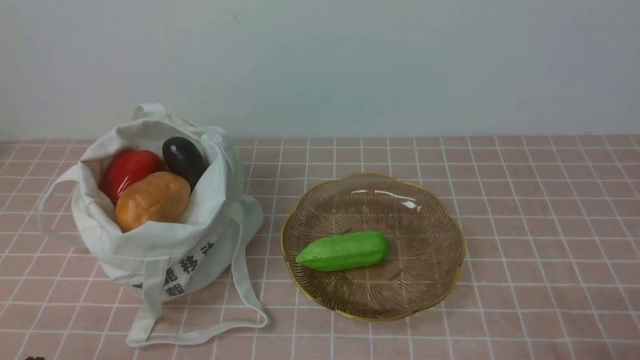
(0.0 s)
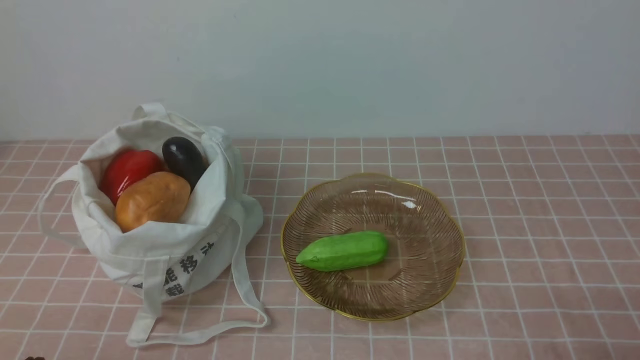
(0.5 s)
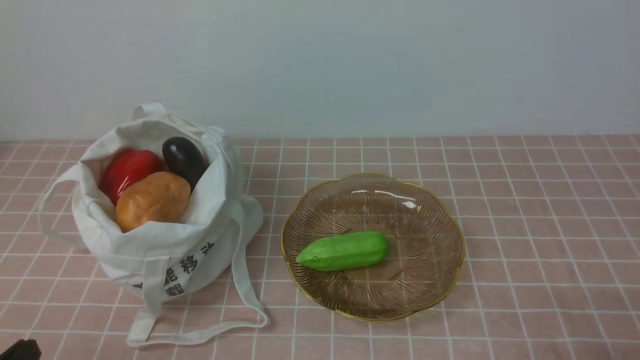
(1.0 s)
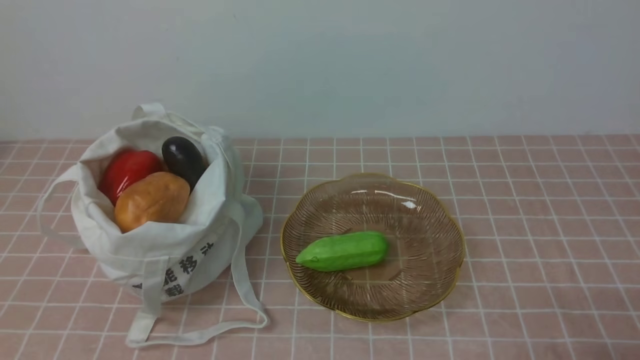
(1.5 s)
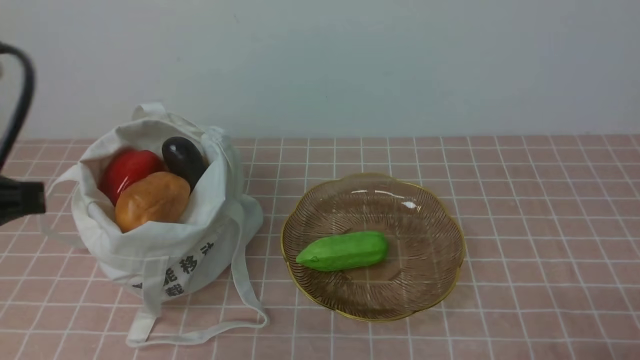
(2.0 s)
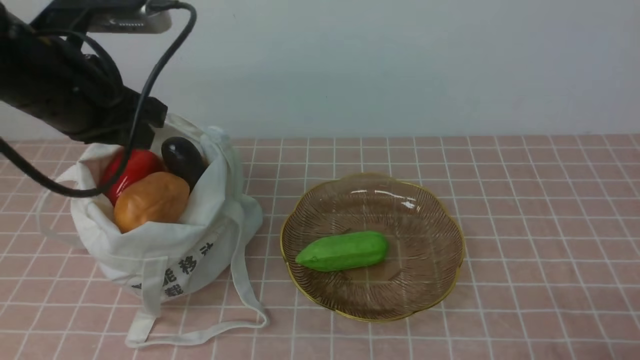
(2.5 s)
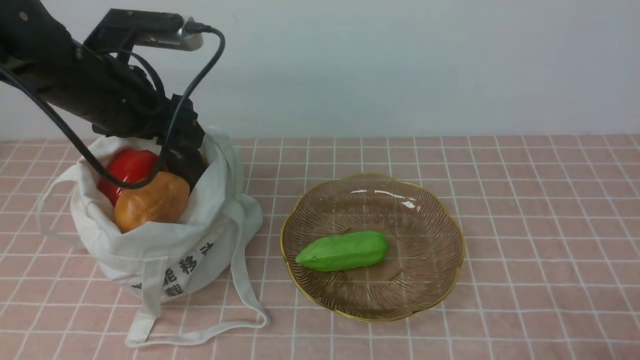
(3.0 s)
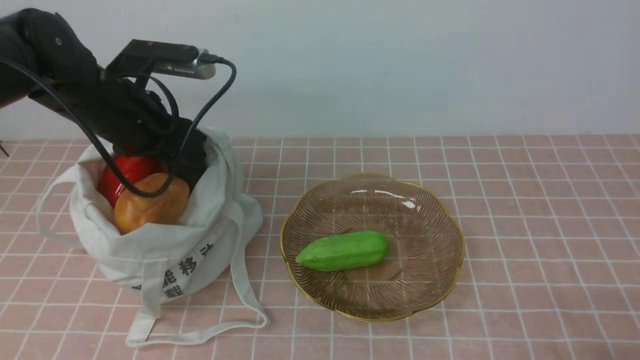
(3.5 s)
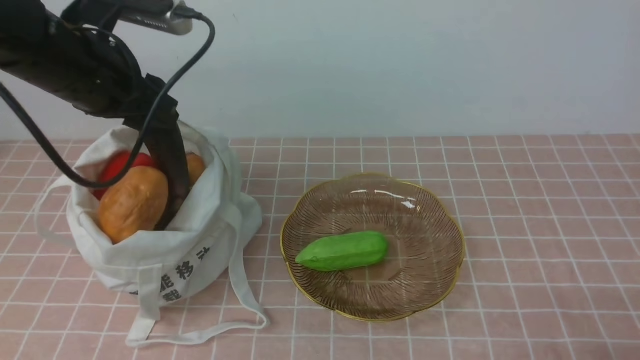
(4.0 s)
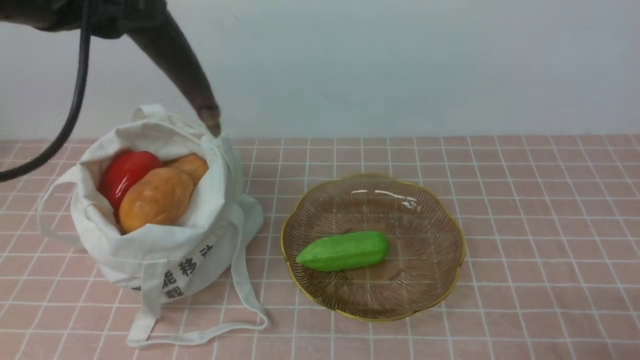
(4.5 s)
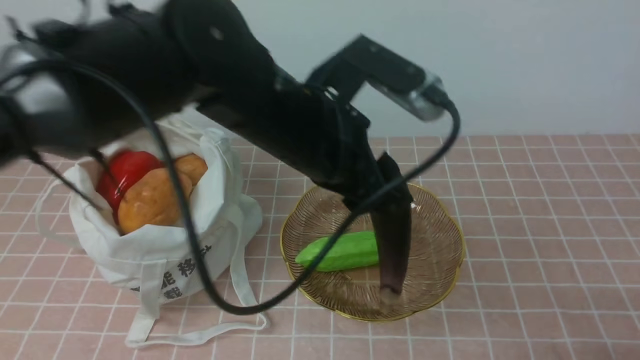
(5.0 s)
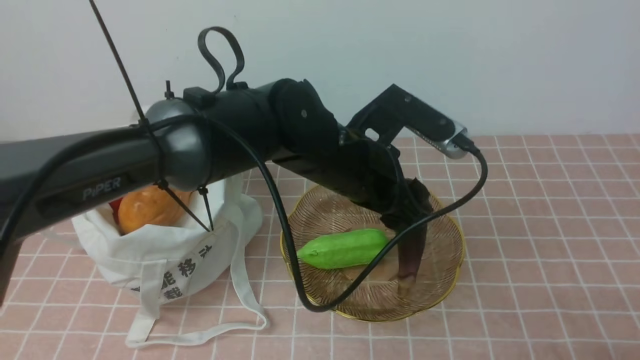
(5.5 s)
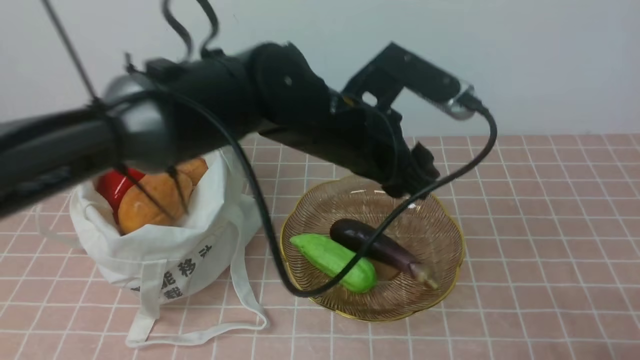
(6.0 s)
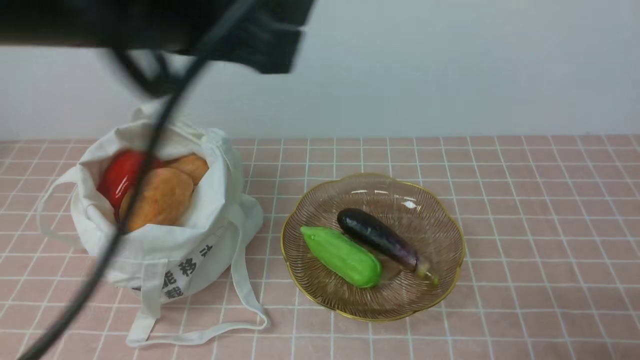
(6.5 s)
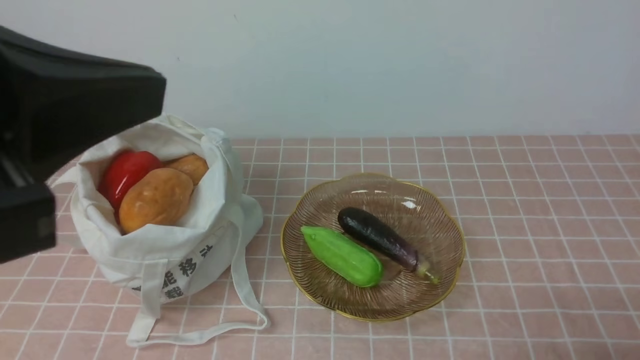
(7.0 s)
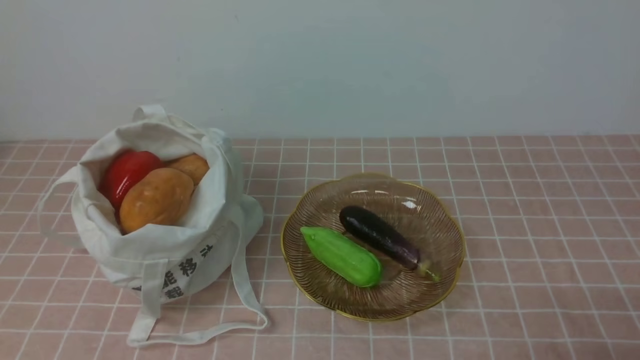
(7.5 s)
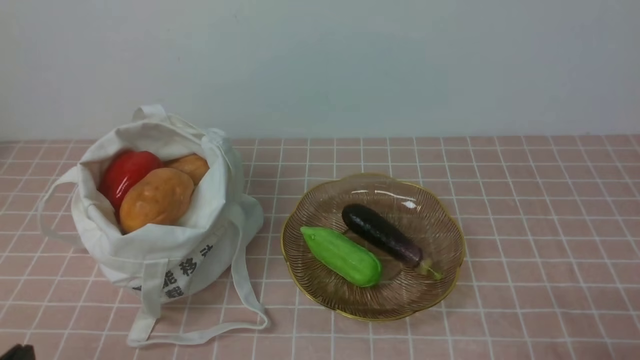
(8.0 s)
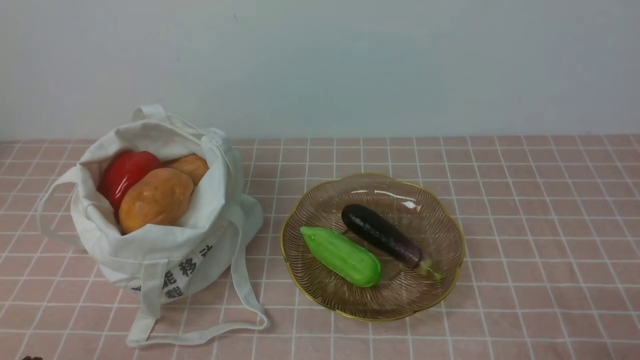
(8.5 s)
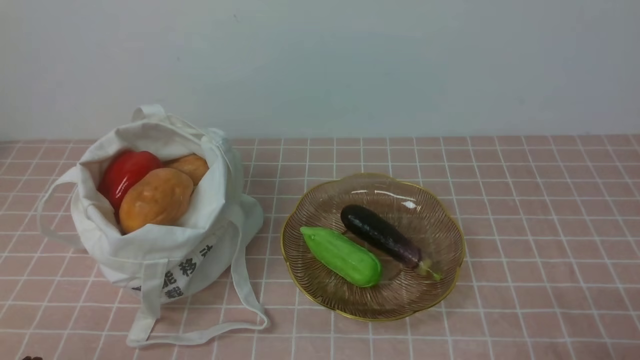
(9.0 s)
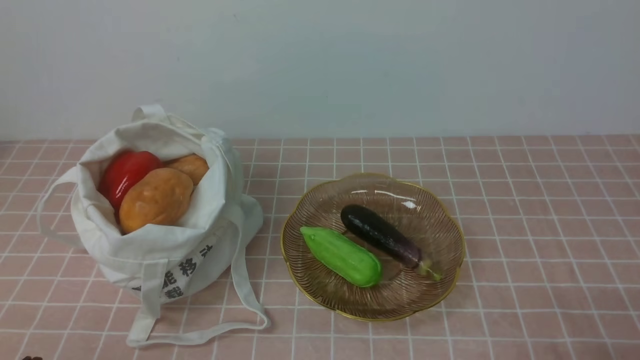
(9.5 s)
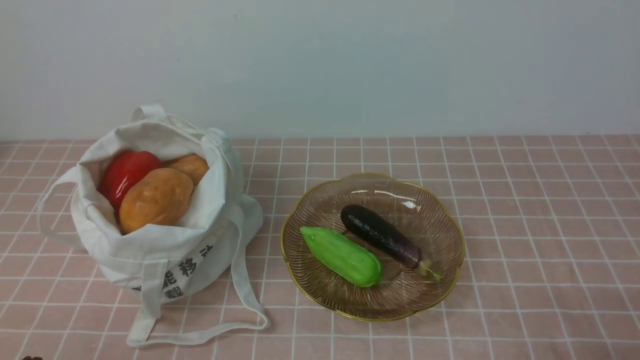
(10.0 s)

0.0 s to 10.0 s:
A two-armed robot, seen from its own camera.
Task of the whole recording: take vegetables from bag on pink coffee tablecloth place on plate.
Step, 0.0 to 3.0 s: Grasp the eggplant with left gripper.
Step, 3.5 to 6.0 s: Place the eggplant on the plate with left gripper.
0.0 to 2.0 s: The left gripper heads upward and forward, covering roughly 25 cm.
2.0 to 4.0 s: The left gripper shifts approximately 15 cm forward, and opens up.
4.0 to 6.0 s: The left gripper heads to the right, covering about 20 cm.
6.0 to 8.0 s: The left gripper is displaced backward, to the left and downward by approximately 40 cm, and closes up.

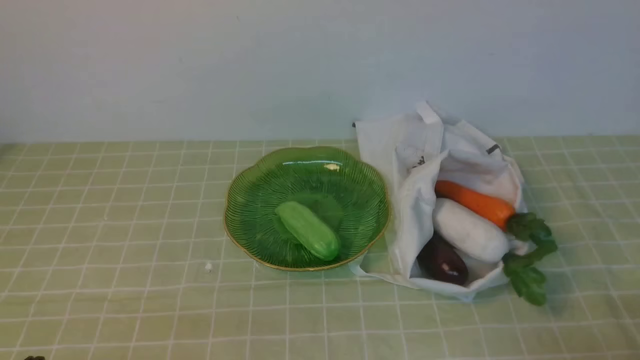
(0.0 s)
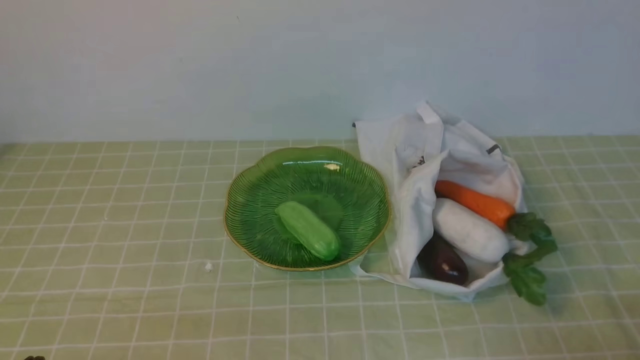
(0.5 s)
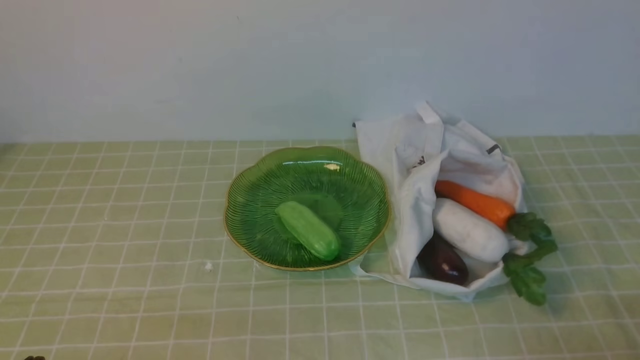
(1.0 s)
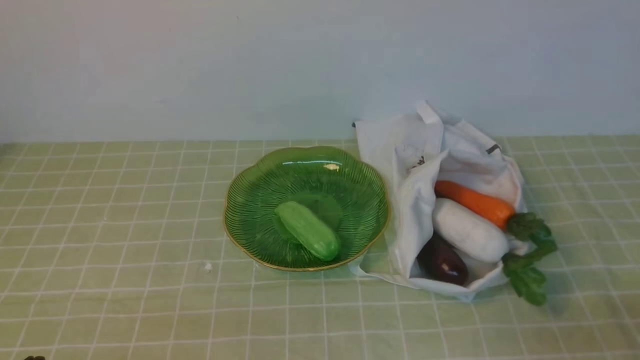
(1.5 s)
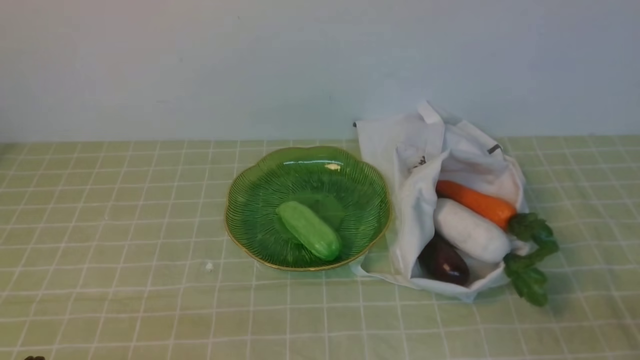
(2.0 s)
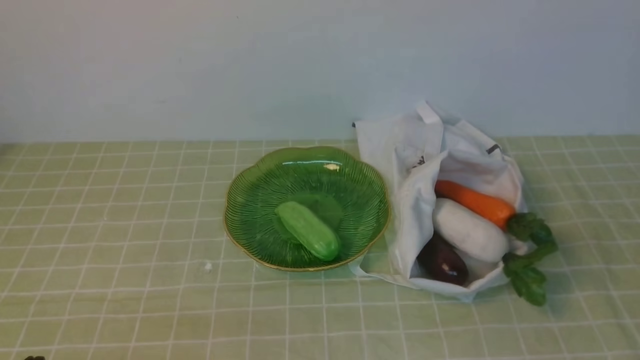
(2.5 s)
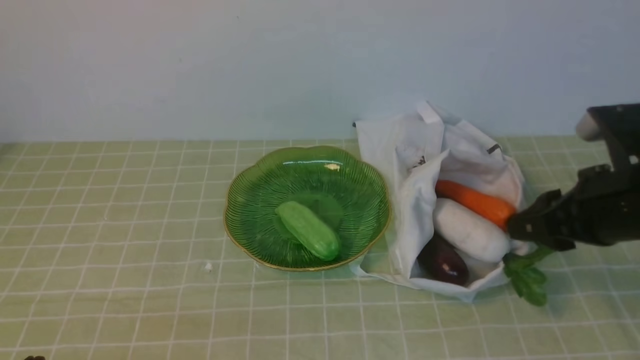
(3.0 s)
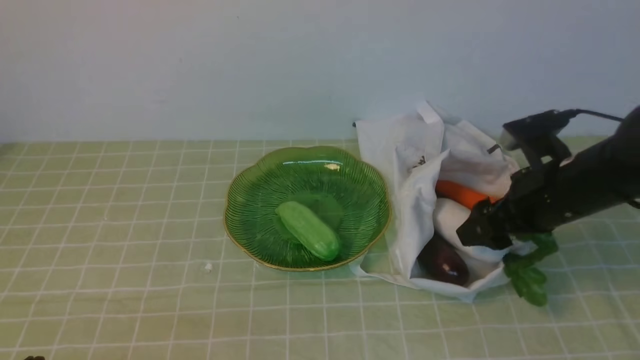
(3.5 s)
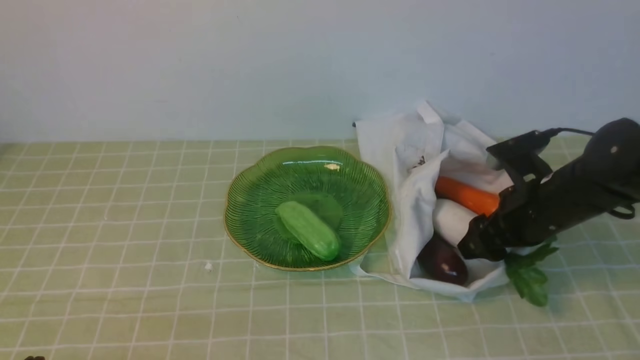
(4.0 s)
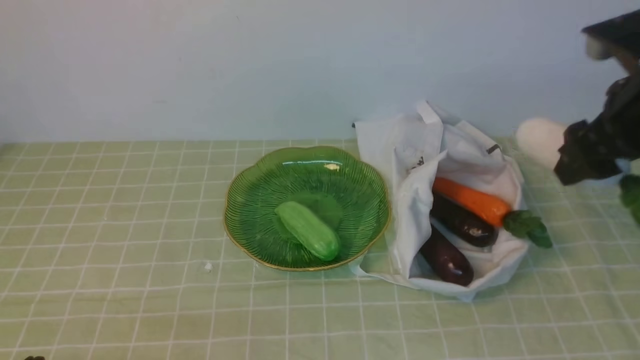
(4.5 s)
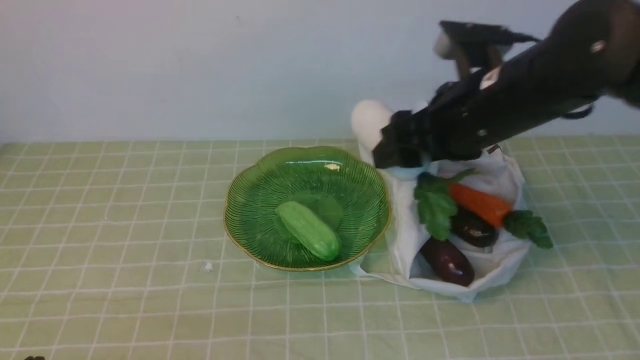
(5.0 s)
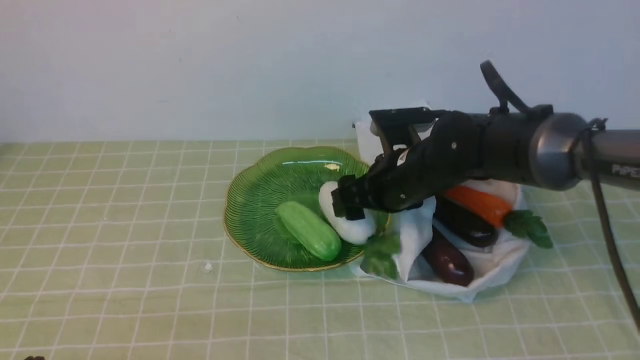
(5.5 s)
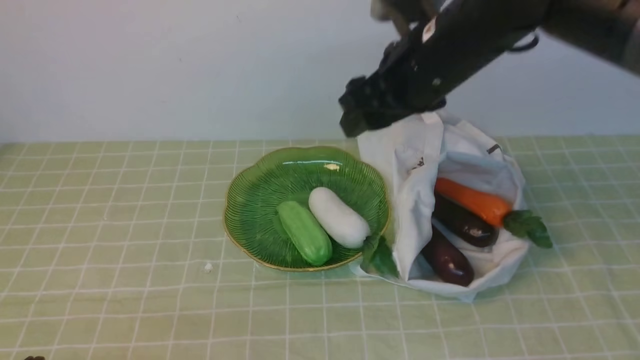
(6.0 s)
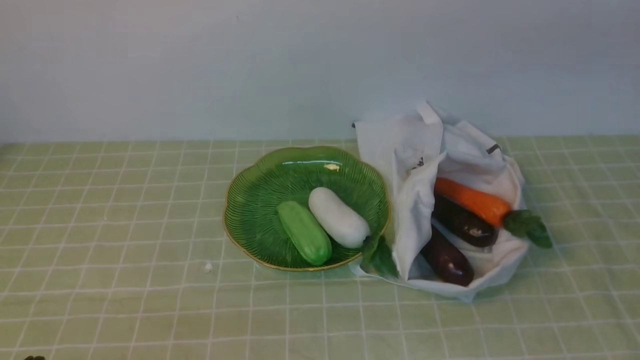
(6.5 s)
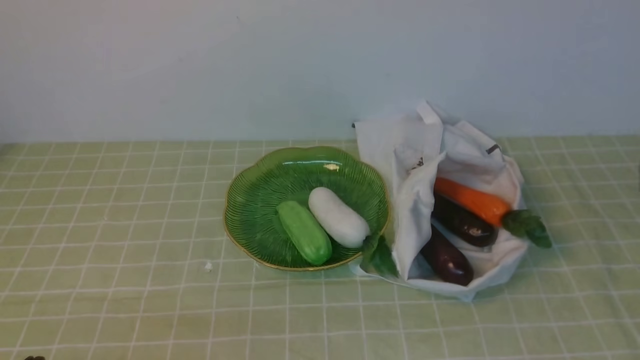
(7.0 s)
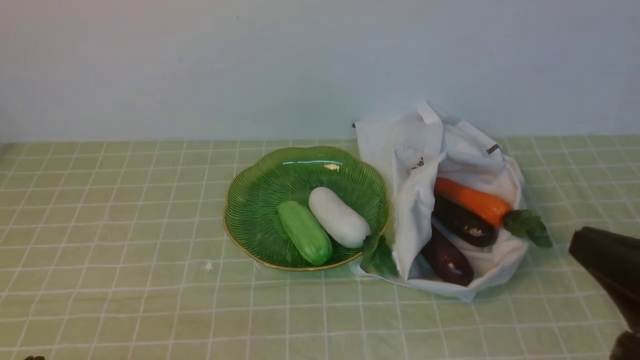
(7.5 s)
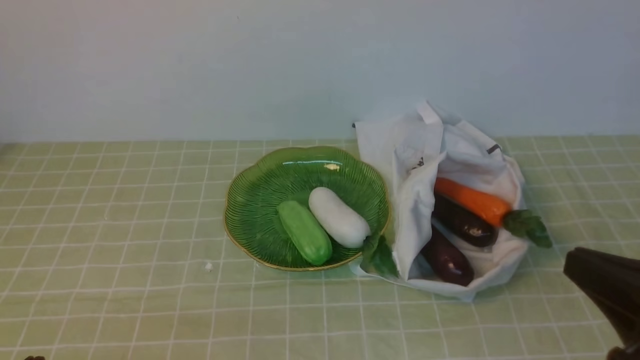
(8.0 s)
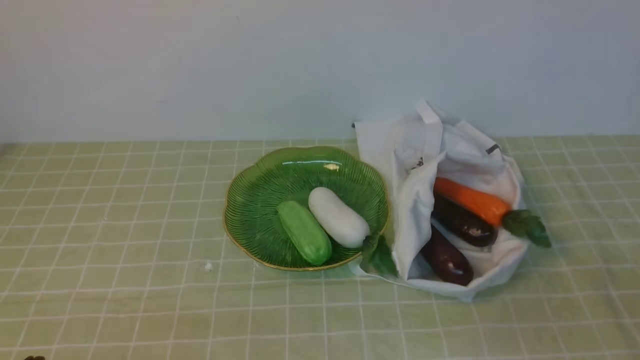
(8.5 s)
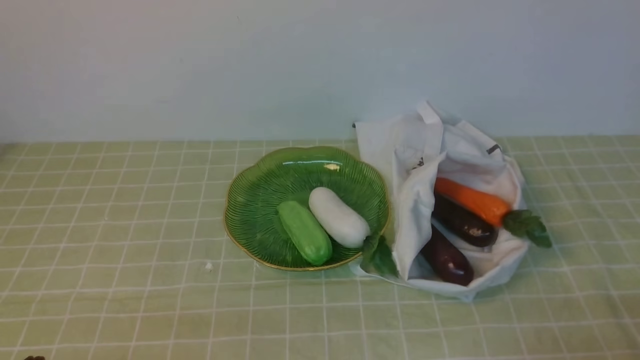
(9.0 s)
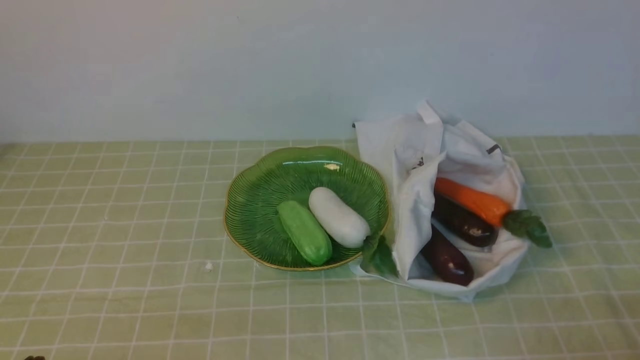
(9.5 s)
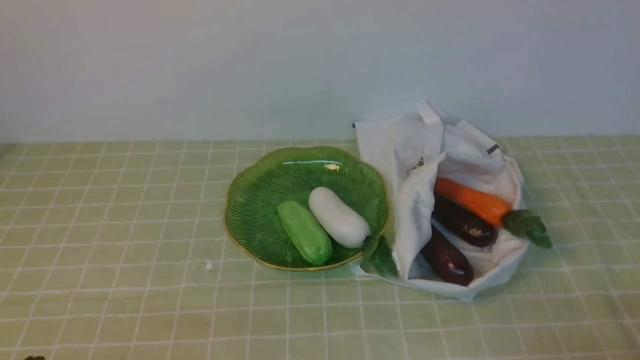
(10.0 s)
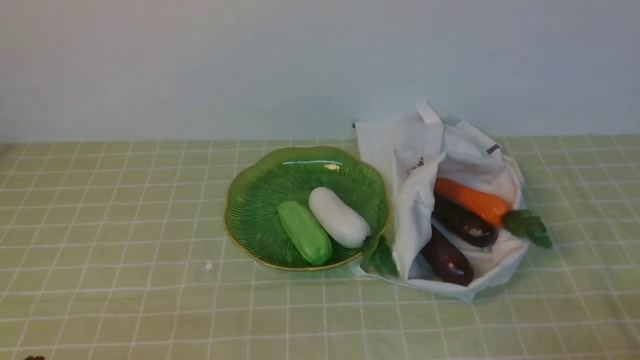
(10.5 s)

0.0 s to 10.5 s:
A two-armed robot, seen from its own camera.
Task of the whole recording: take vegetables from bag on green coffee tablecloth place on plate.
Step, 0.0 to 3.5 s: Grasp the radish with right gripper.
Step, 4.5 to 5.5 s: Place the radish on the plate with right gripper.
2.0 to 4.0 s: The right gripper travels forward by about 25 cm, and opens up.
4.0 to 6.5 s: The right gripper moves up and down over some 30 cm, changing direction 2 times, and closes up.
